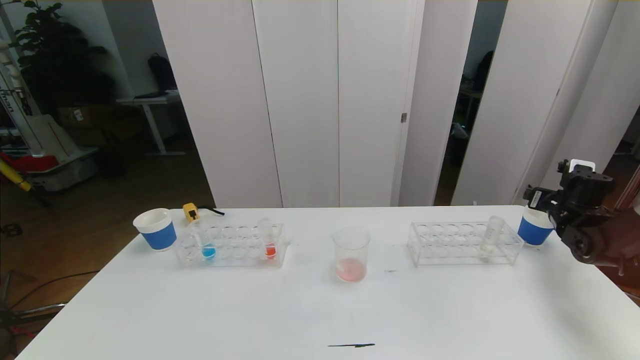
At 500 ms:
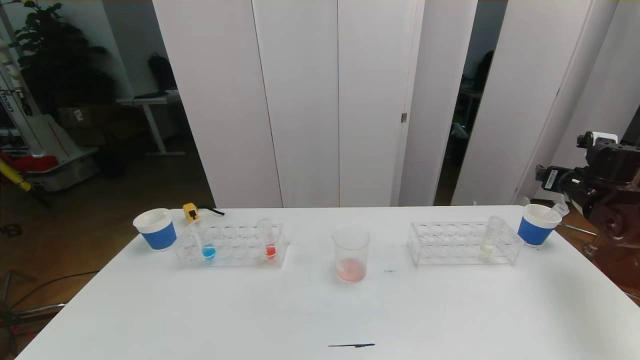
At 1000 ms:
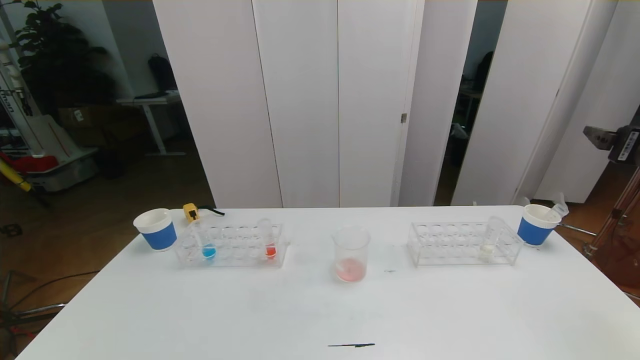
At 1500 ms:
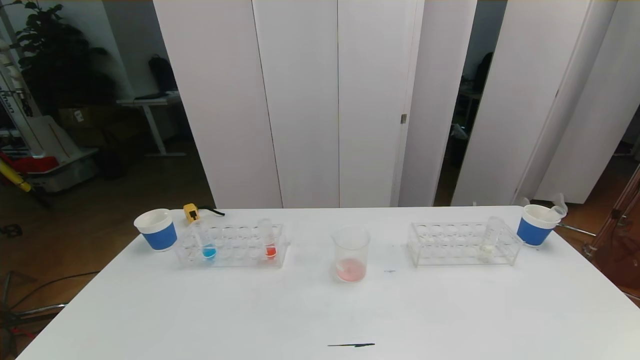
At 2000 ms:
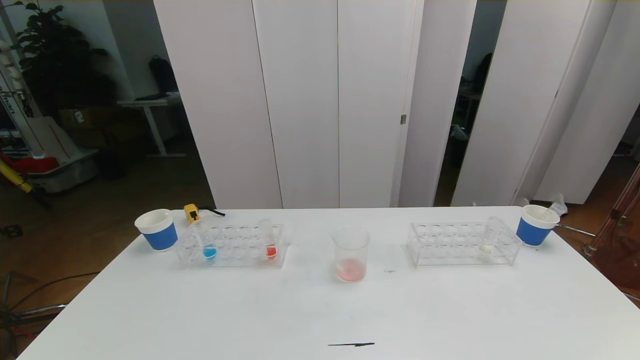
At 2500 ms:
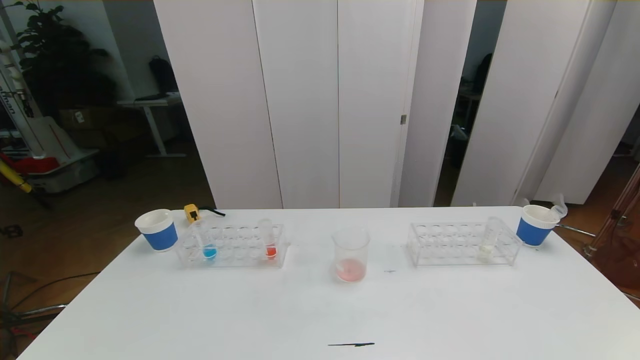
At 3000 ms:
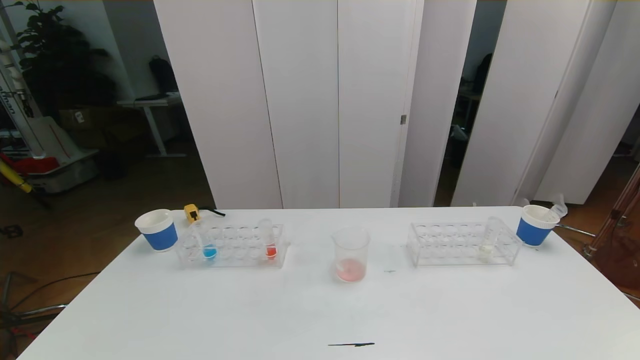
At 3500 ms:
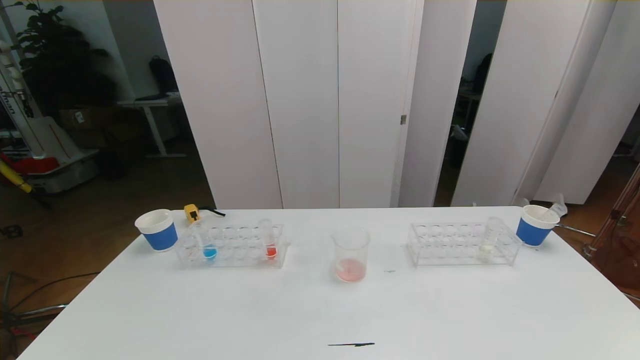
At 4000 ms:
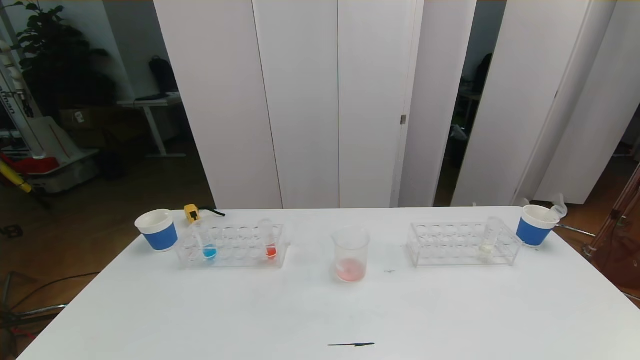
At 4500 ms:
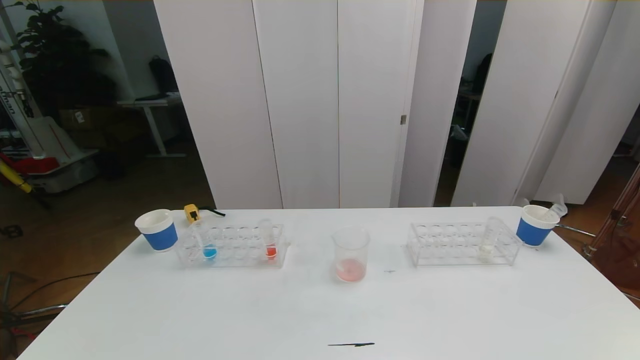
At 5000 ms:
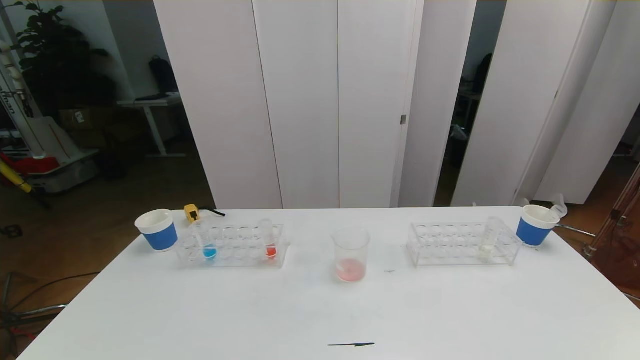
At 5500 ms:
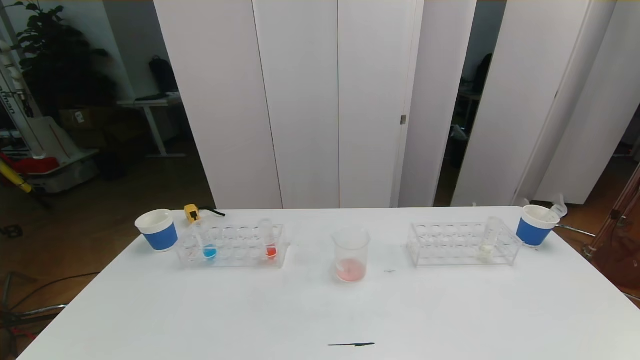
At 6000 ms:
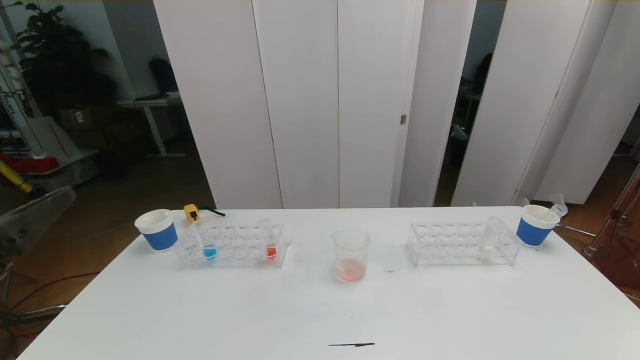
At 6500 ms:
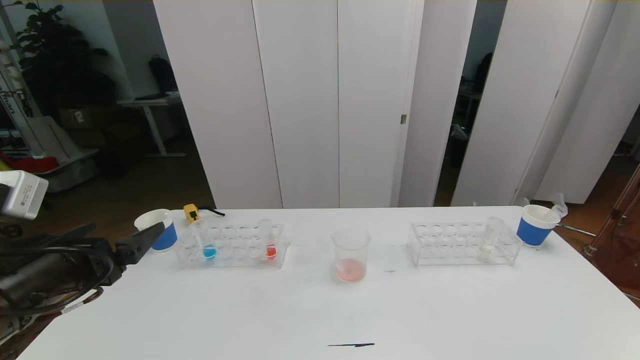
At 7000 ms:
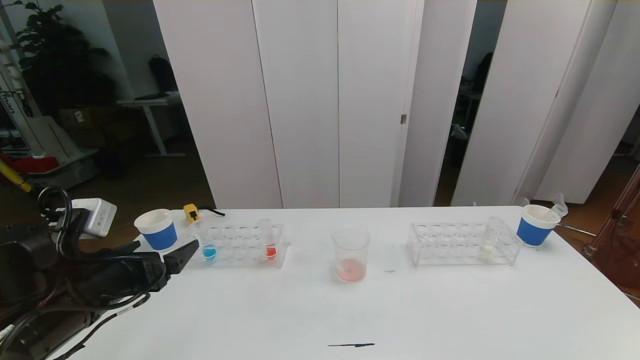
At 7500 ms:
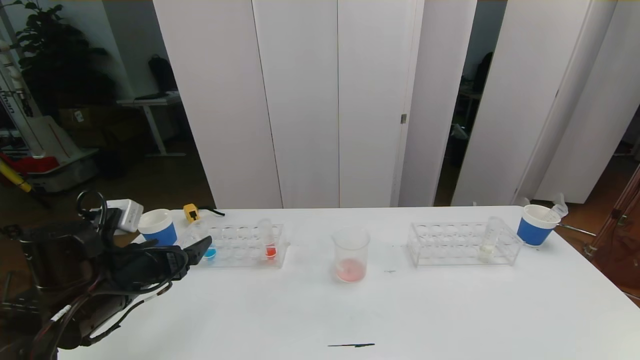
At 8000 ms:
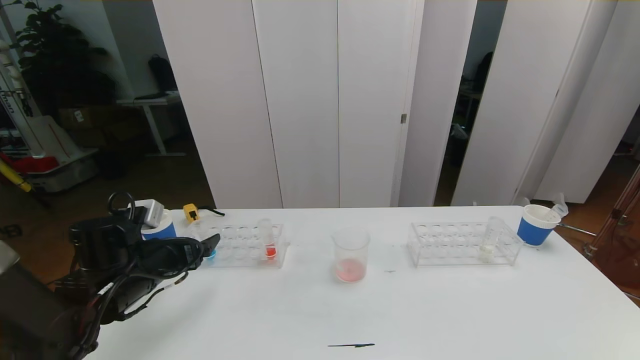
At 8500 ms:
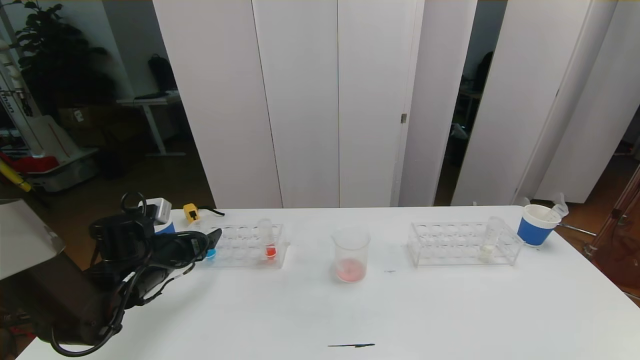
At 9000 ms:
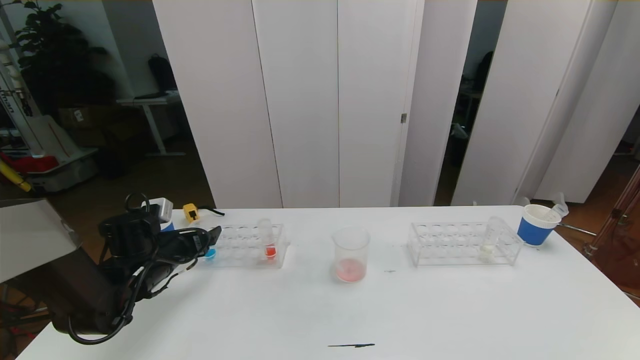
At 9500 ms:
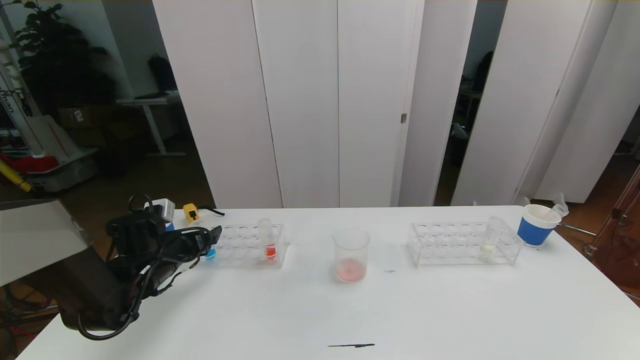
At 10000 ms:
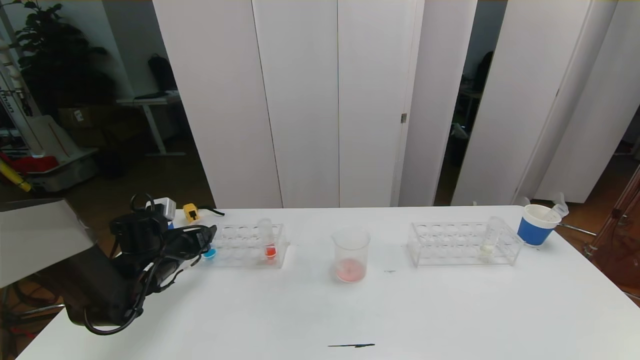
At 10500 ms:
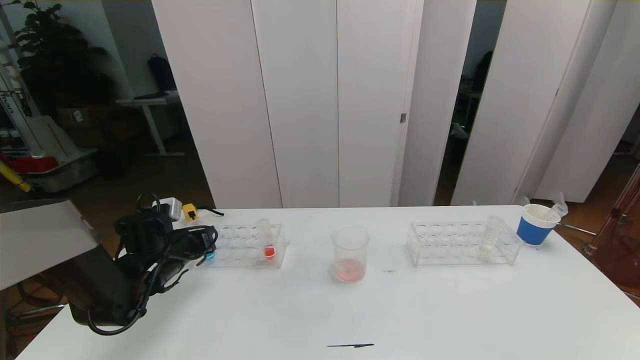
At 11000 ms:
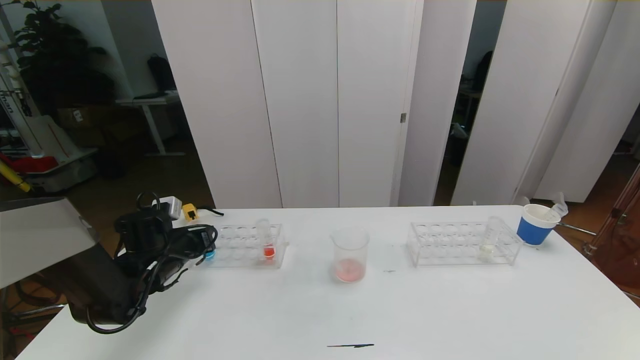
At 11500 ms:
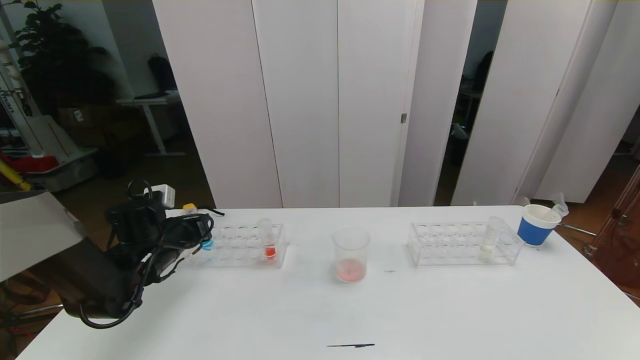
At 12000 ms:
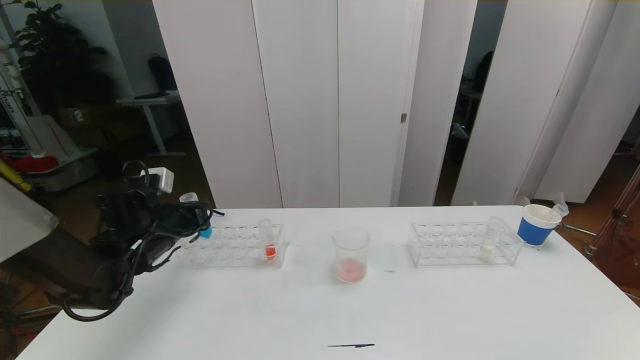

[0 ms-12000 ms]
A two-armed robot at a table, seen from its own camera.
Task of the whole recording: pick up the test tube with red pigment the test tube with blue pigment and the test tube with white pigment by grippers and pour them into the beaker.
Step, 0 ms to 2000 ms: Pour the red reagent into the graduated cylinder and place the test tube into the paper cup.
0 ms to 2000 ms: The right gripper is displaced backward by about 40 cm.
6000 ms to 8000 ms: The left gripper moves forward and downward, some 25 cm.
8000 ms to 10000 ms: The left gripper goes roughly 5 cm forward, and closes.
10000 ms to 12000 ms: The left gripper moves upward, about 5 cm, and closes its fingers.

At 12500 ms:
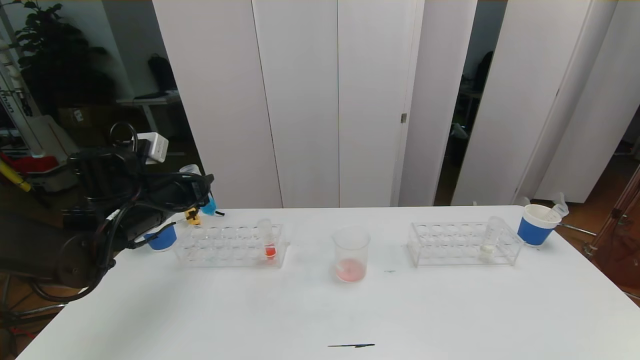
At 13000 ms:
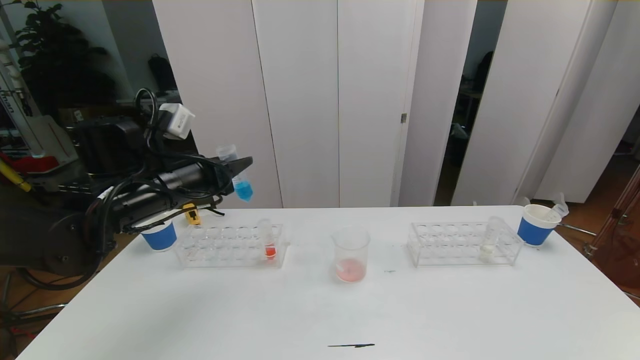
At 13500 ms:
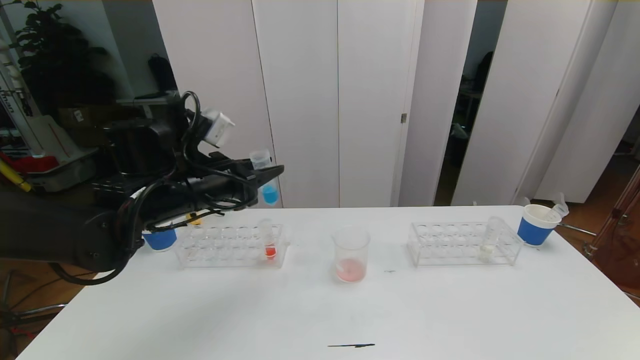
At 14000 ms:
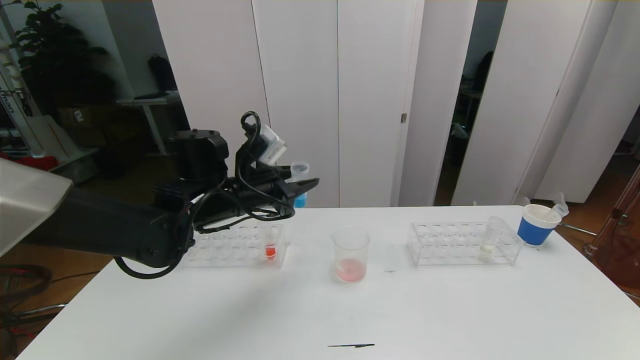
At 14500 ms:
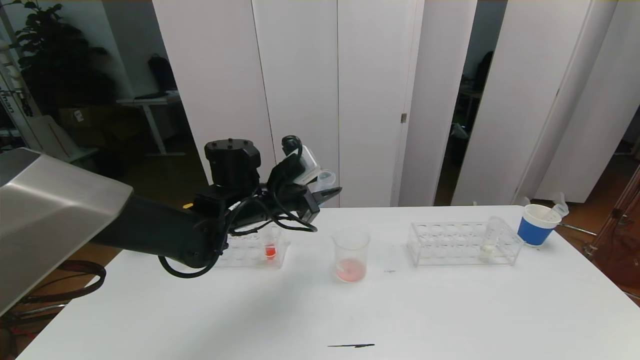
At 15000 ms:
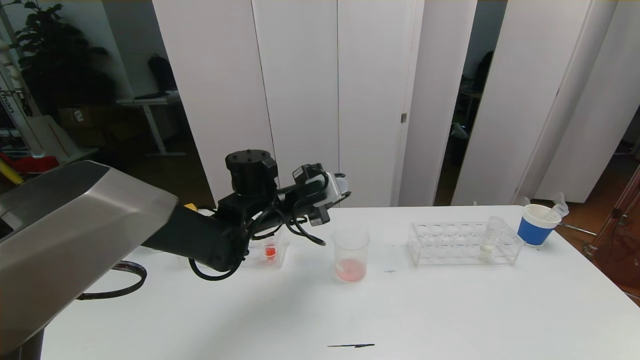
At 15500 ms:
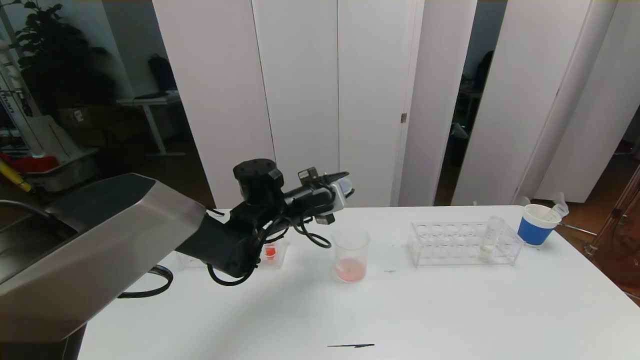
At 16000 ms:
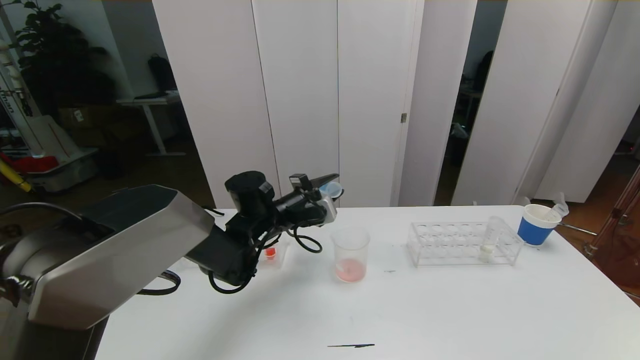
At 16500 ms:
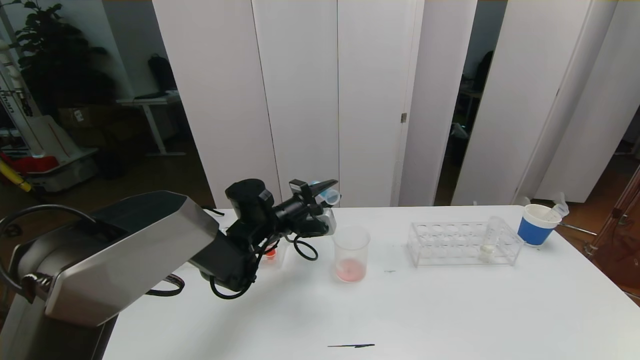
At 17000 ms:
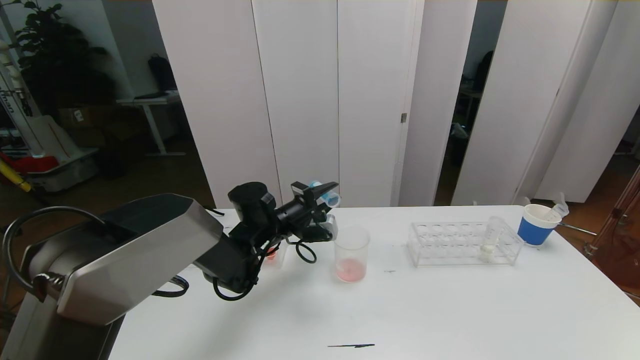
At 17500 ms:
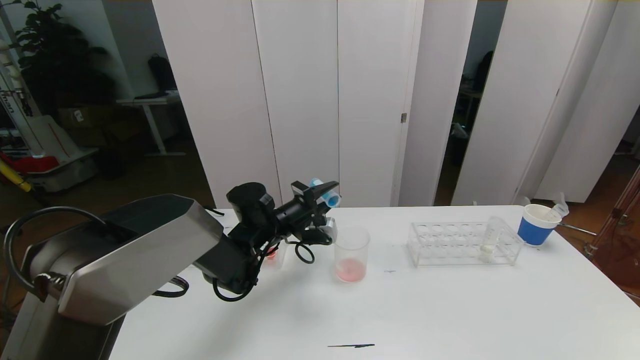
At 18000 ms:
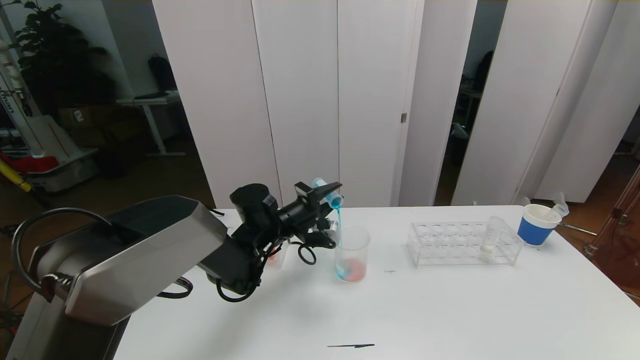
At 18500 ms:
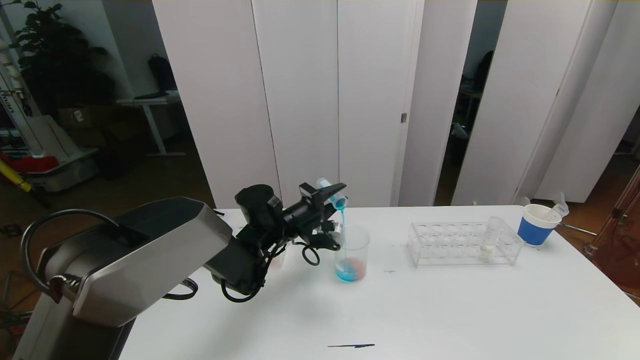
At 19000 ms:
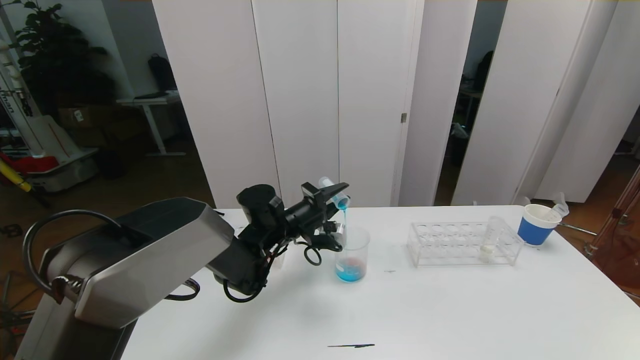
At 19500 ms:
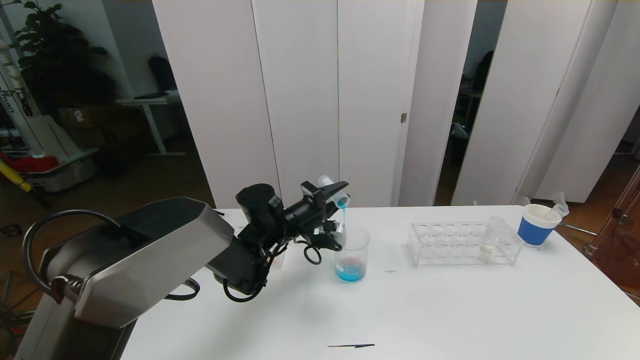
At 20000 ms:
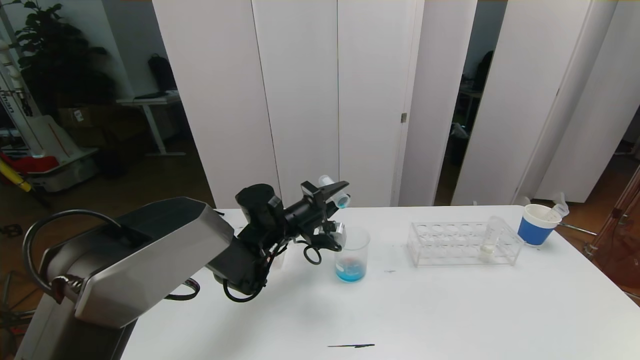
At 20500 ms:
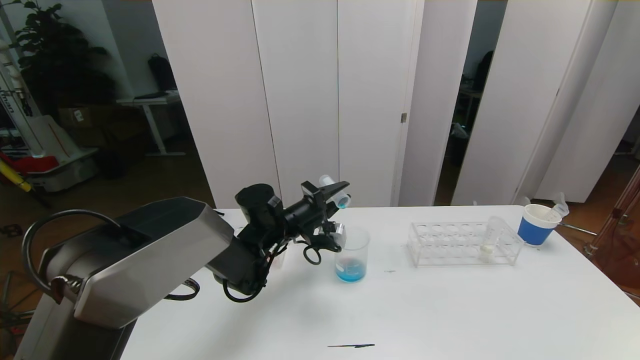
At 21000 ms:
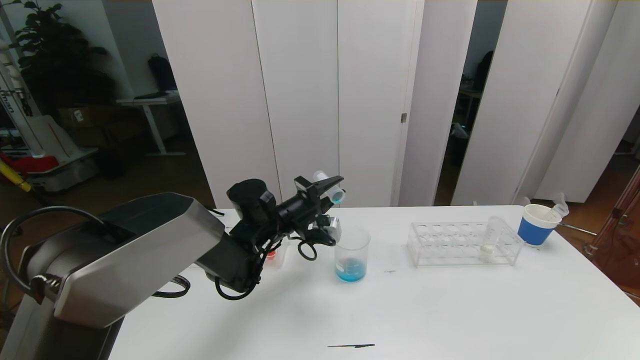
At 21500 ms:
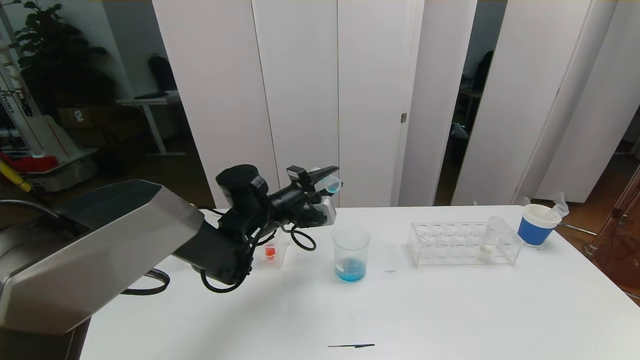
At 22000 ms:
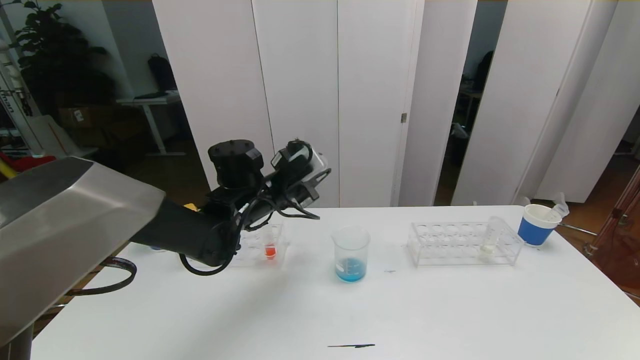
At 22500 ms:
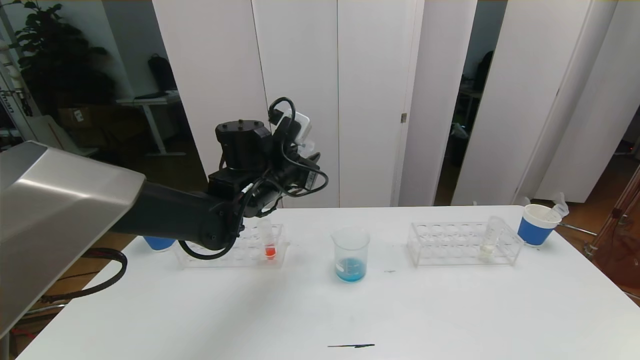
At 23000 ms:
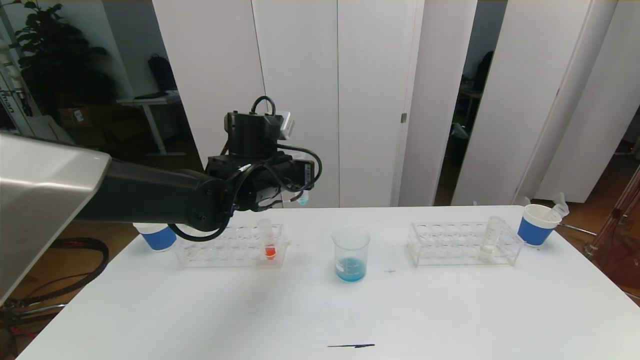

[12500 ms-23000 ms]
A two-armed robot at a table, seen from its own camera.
Task of the whole recording: pick up the test tube with red pigment the test tube with blue pigment and the test tube with white pigment by grippers and pour them into the beaker.
12500 ms to 14500 ms: The left gripper goes roughly 15 cm to the right.
14500 ms to 16500 ms: The left gripper travels downward by about 5 cm.
16500 ms to 21000 ms: The grippers make only small movements.
21000 ms to 23000 ms: The left gripper travels upward by some 10 cm.
